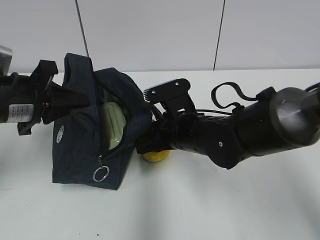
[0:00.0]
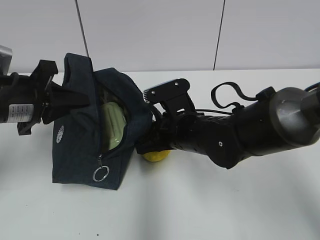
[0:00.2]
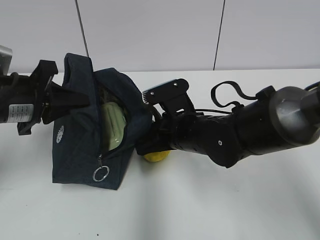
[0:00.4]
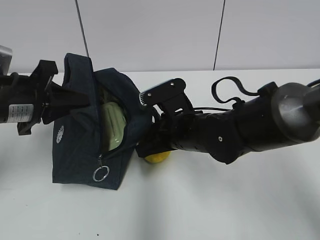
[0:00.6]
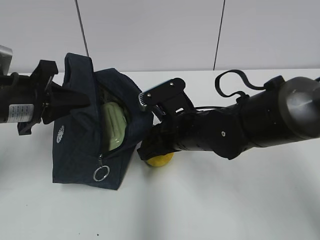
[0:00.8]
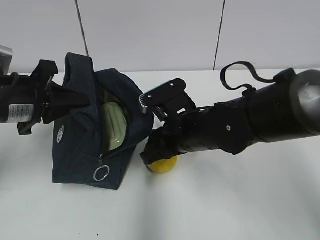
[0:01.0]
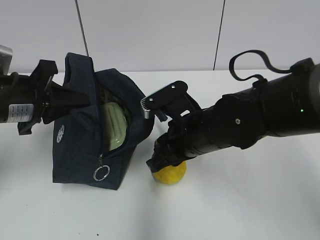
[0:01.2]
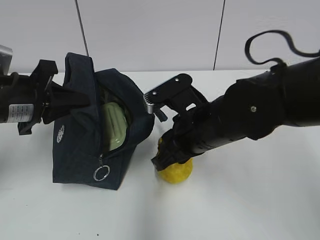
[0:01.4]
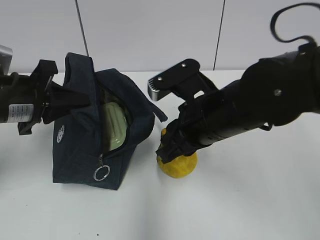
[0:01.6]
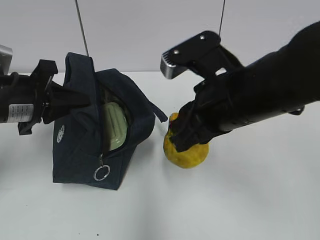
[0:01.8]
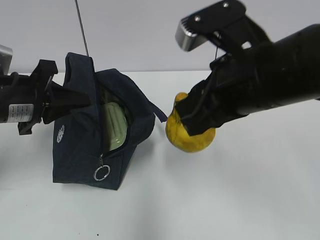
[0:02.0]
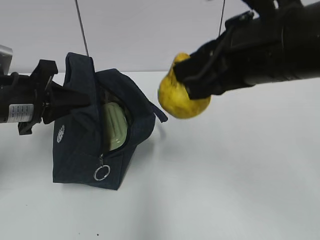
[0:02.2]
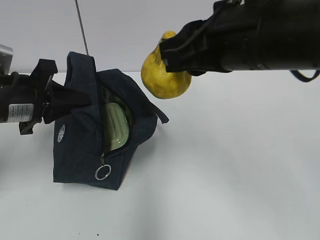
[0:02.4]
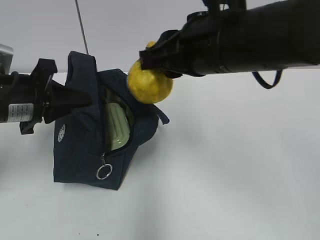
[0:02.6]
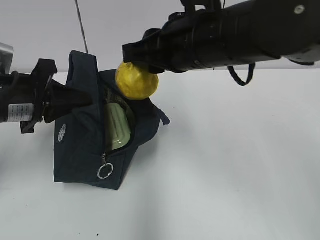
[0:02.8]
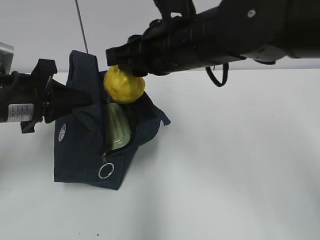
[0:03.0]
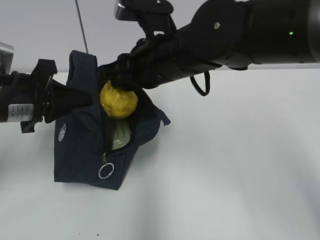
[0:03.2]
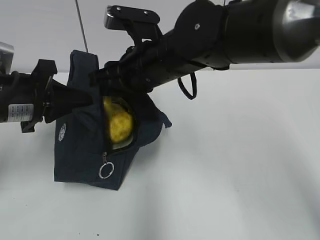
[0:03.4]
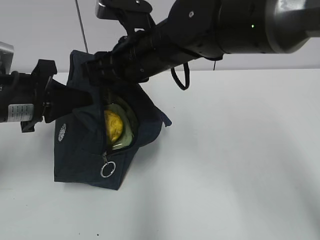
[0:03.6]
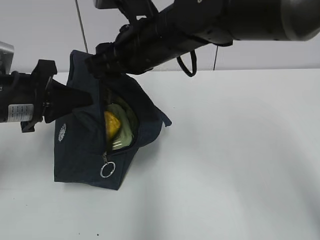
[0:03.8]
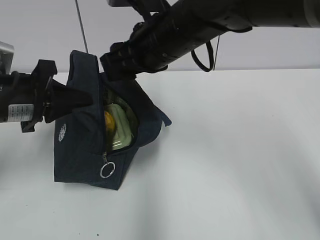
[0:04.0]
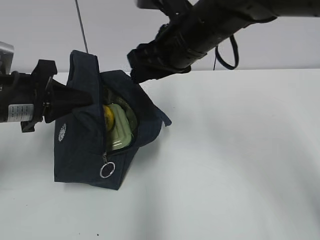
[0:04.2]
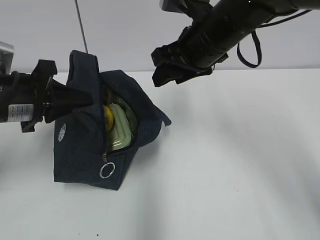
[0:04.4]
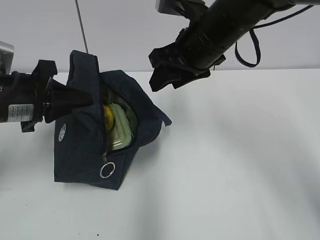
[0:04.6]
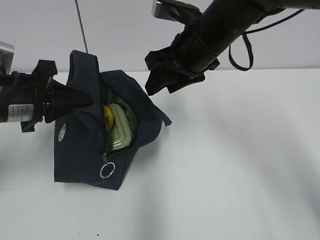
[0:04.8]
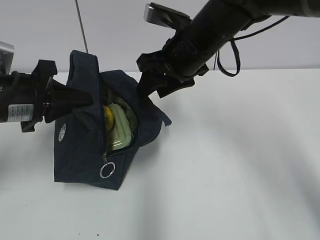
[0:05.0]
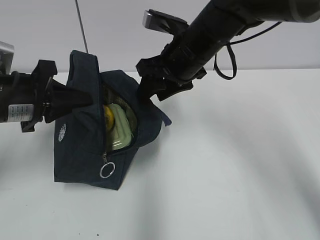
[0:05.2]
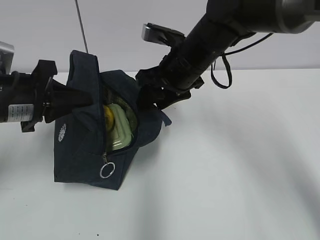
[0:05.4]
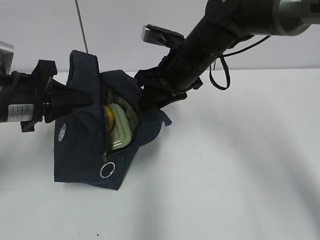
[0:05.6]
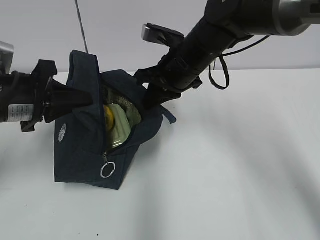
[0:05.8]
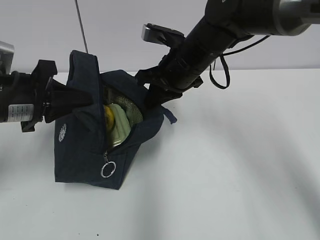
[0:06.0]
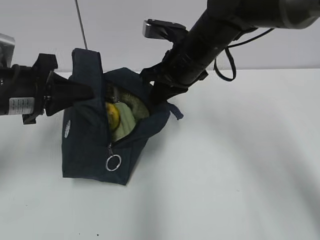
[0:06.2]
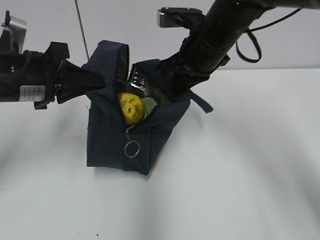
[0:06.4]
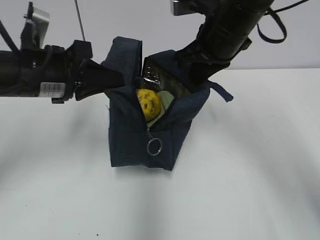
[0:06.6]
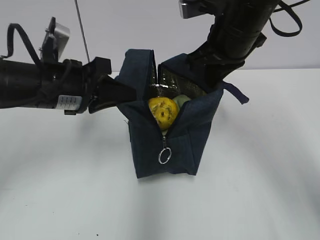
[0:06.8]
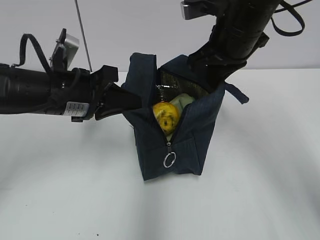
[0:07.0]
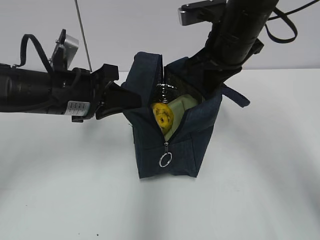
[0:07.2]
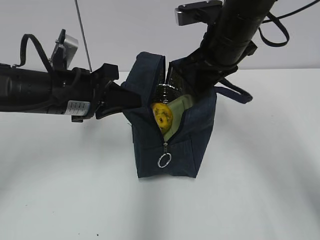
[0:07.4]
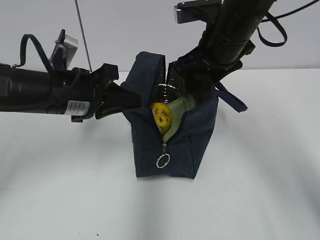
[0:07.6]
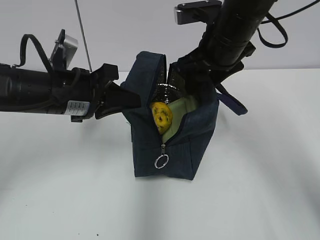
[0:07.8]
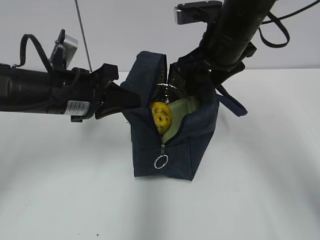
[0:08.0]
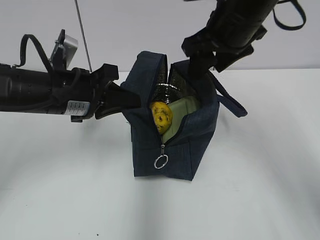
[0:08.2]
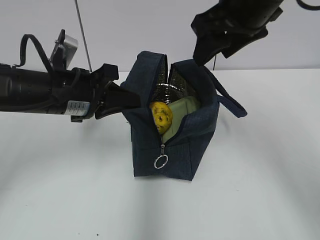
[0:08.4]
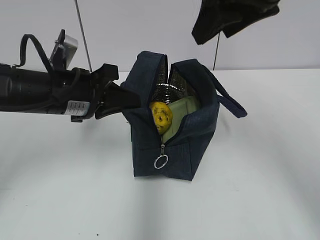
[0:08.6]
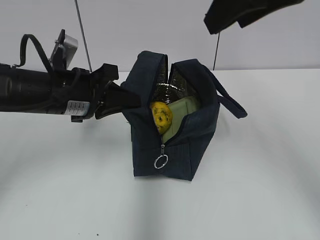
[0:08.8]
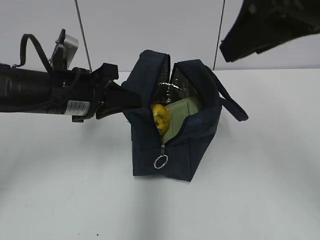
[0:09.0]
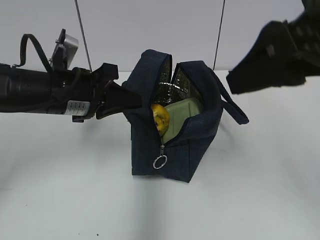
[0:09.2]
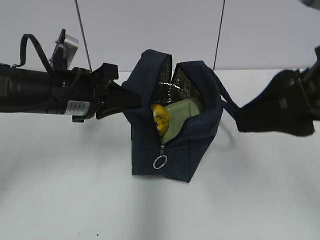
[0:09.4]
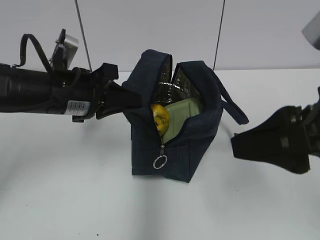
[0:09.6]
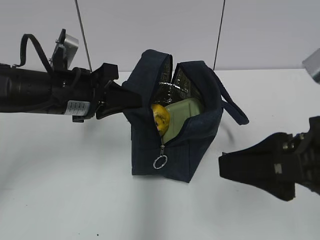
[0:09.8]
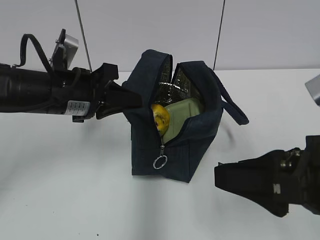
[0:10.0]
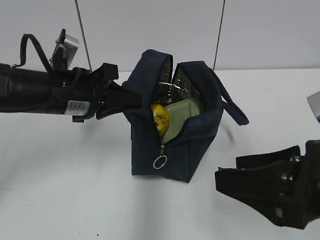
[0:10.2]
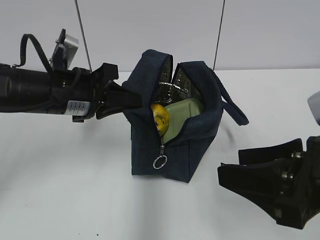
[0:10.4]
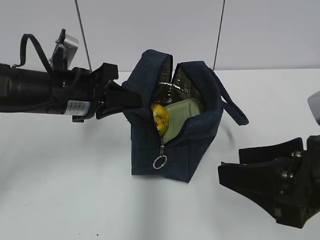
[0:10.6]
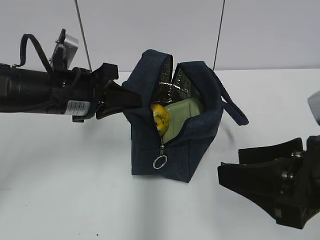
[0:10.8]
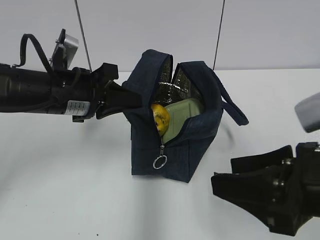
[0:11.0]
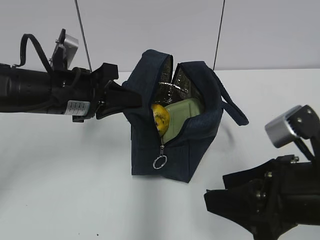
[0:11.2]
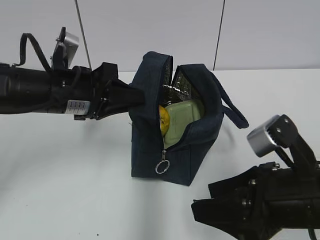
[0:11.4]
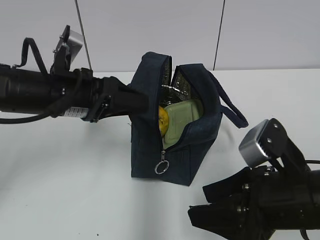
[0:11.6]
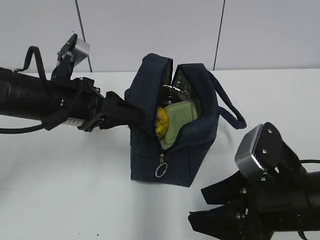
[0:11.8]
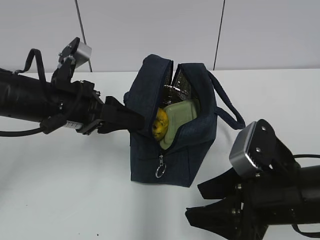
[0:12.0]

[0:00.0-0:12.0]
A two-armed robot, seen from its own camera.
Step, 0:00.8 to 0:04.0: Place it into the bag with your right hand.
Step, 0:04.2 to 0:05.8: Grab the lunch bag with your right hand.
Step, 0:06.0 to 0:06.2: Move the lunch bag to the left.
Step, 0:06.4 to 0:07.6: Move the lunch bag to the right.
0:00.0 to 0:01.6: The right gripper is displaced upward and backward by about 10 cm.
0:01.6 to 0:03.0: The right gripper heads upward and forward, covering approximately 10 cm.
0:03.0 to 0:04.4: The right gripper moves to the right, some 5 cm, and opens.
0:04.4 to 0:06.0: The right gripper shifts about 5 cm downward, and closes its fingers.
0:06.0 to 0:07.6: The left gripper is displaced to the right by approximately 5 cm. Meanwhile the right gripper shifts some 5 cm to the right and upward, and opens.
0:07.6 to 0:09.0: The right gripper heads backward and upward, covering approximately 20 cm.
0:09.0 to 0:10.4: The right gripper moves downward and backward, about 20 cm.
0:10.4 to 0:12.0: The left gripper opens up. Meanwhile the right gripper is displaced downward by about 5 cm.

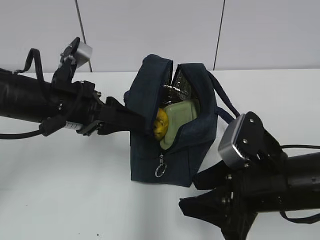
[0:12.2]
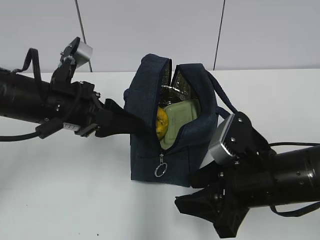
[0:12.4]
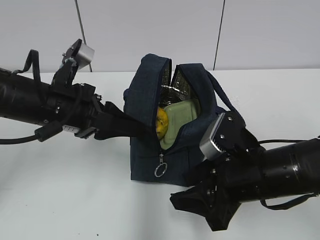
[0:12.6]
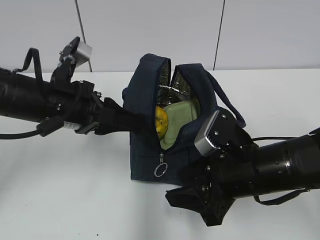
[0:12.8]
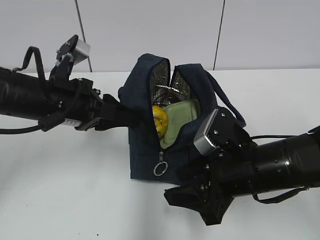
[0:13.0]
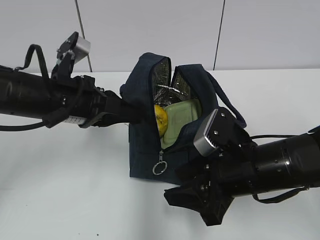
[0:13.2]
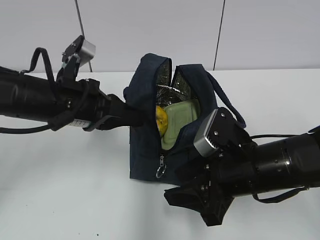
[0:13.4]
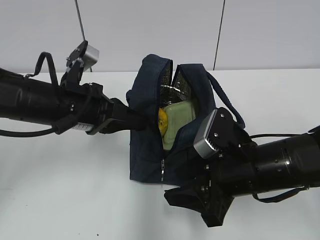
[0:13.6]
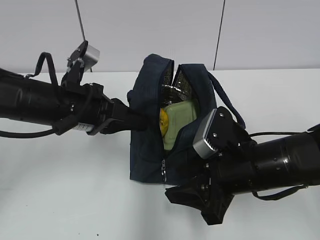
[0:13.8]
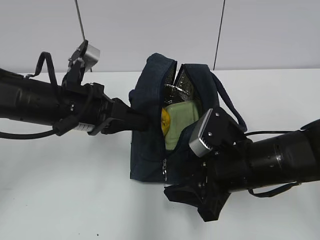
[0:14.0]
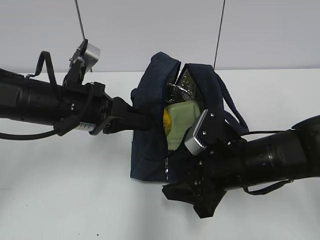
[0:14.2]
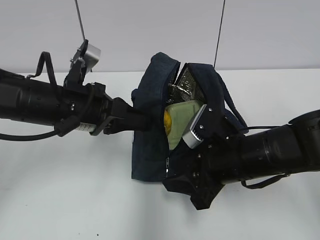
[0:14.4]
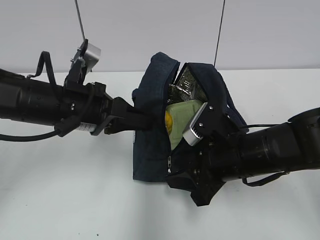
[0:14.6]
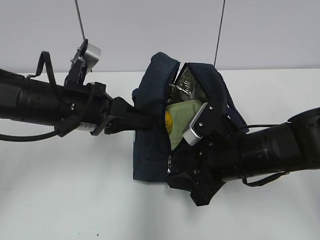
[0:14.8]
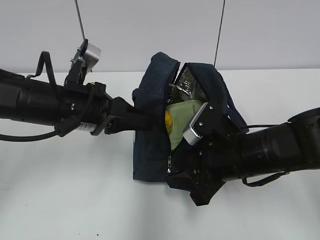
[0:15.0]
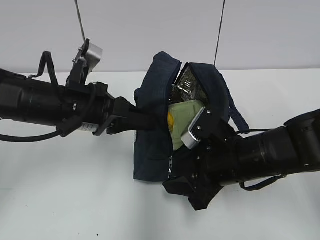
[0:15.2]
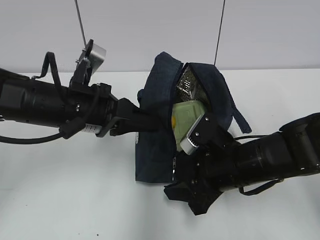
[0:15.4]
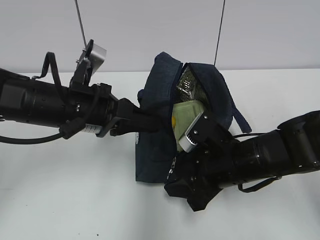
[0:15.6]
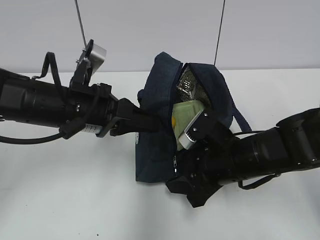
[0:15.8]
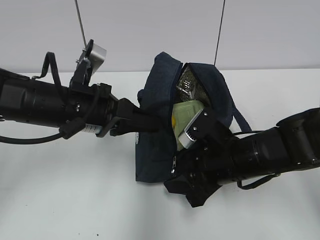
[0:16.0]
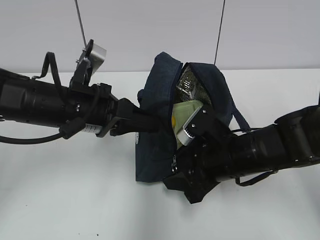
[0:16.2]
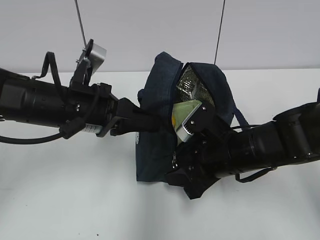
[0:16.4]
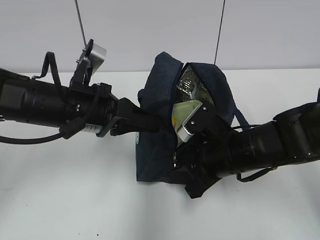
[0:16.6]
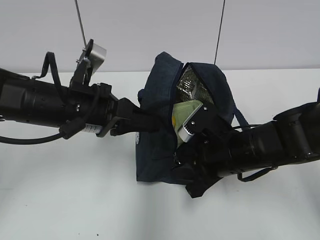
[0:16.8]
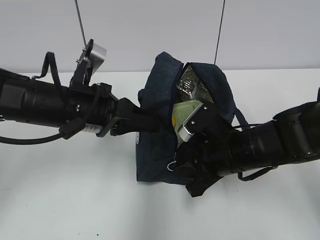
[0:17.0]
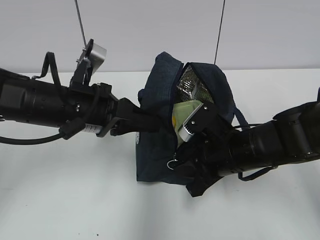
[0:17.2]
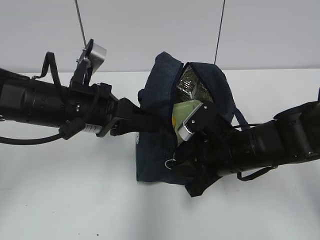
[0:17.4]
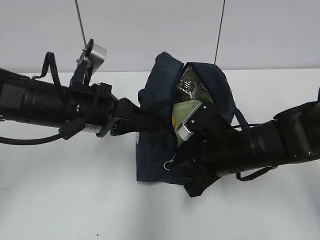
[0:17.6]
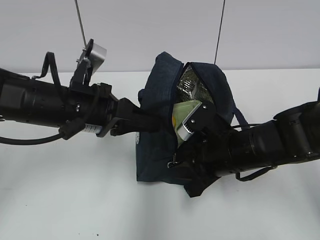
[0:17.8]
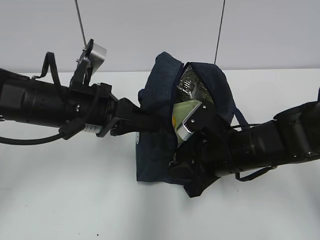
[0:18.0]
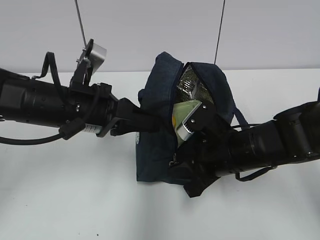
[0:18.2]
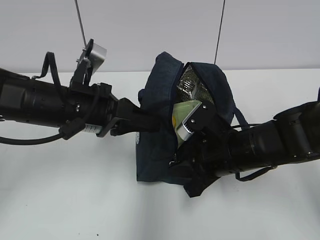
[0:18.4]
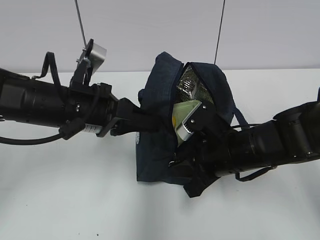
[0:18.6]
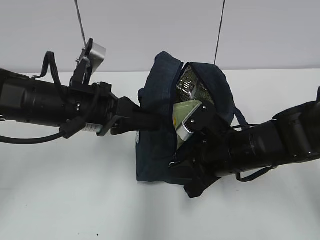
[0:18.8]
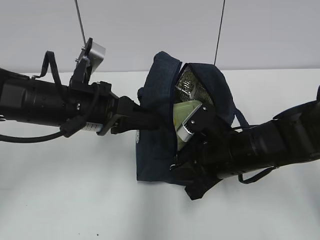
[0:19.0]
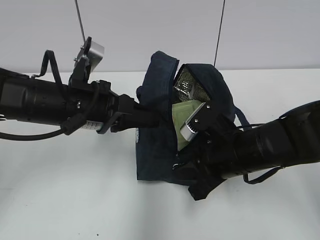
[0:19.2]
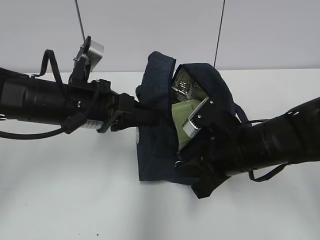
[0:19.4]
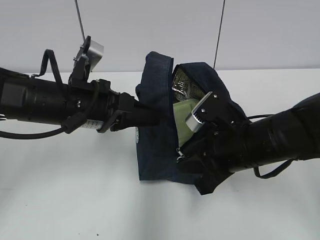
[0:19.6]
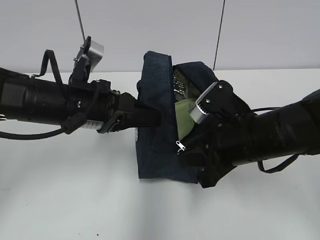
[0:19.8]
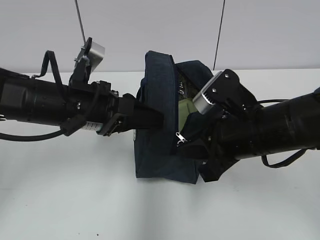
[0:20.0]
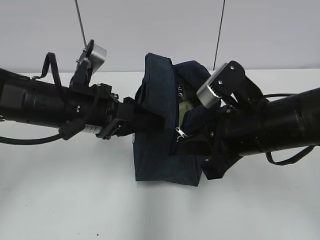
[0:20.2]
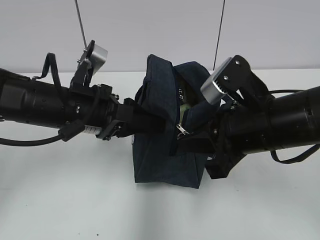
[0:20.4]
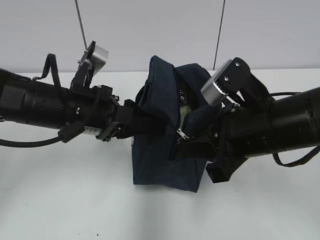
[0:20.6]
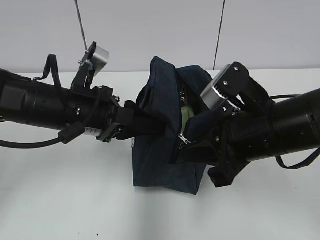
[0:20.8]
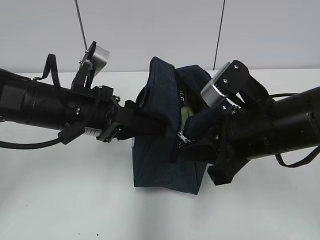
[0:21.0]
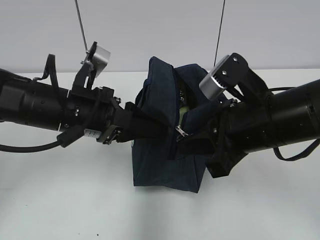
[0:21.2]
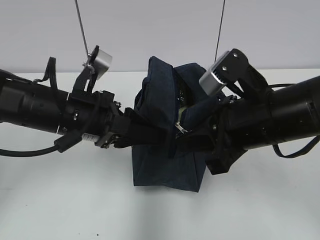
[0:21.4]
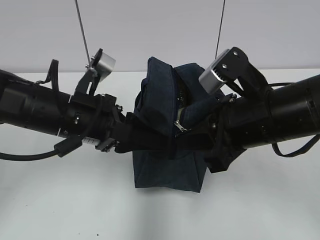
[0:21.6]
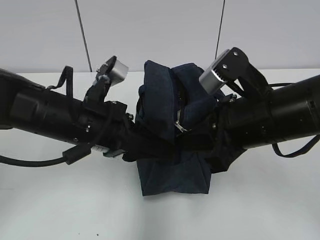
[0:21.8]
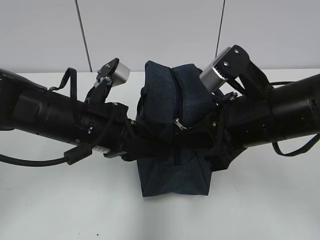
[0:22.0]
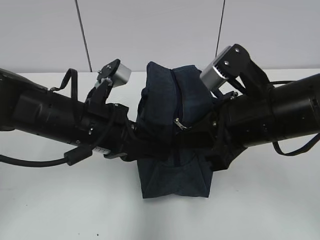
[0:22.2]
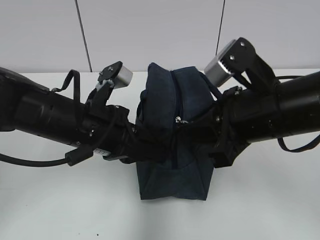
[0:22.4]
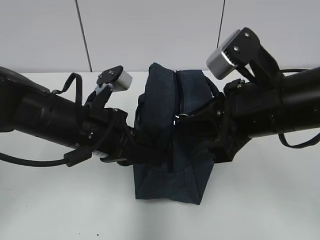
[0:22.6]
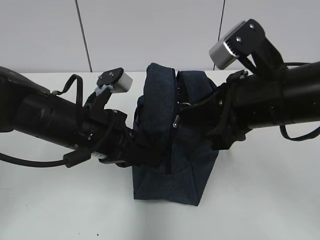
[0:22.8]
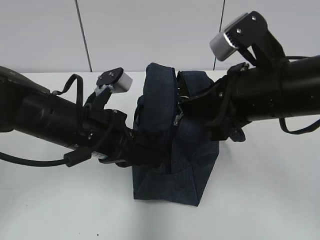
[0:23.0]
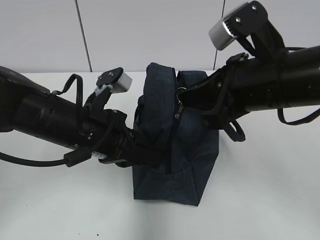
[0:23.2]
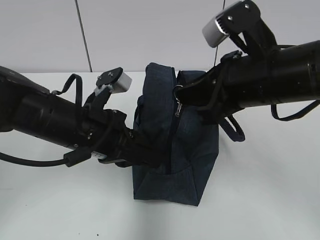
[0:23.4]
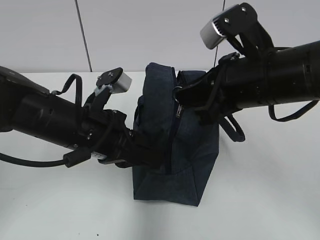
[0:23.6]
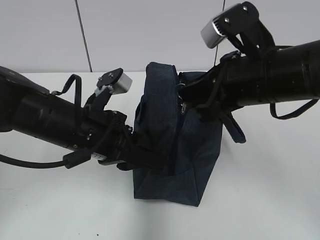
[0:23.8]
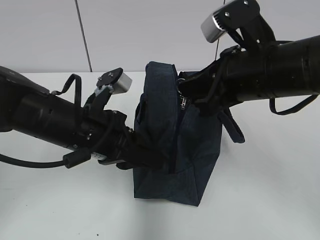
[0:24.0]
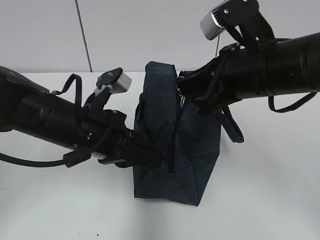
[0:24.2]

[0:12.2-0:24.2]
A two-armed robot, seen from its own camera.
Step, 0:12.2 to 0:15.0: Grab the lunch bag with your left hand.
0:12.2 to 0:13.8: The left gripper closes.
0:13.8 to 0:16.6: The grippers move only a little.
0:16.6 to 0:18.2: Neither gripper changes place.
0:18.2 to 0:19.8: The right gripper heads upward, covering approximately 5 cm.
0:19.8 to 0:21.2: The right gripper shifts by approximately 5 cm.
0:21.2 to 0:22.6: The left gripper closes.
0:22.6 to 0:24.2: The left gripper opens, then closes once more.
